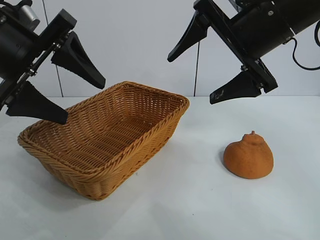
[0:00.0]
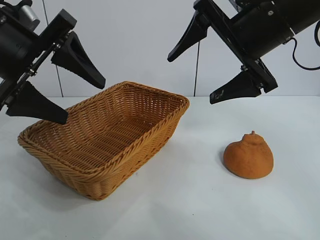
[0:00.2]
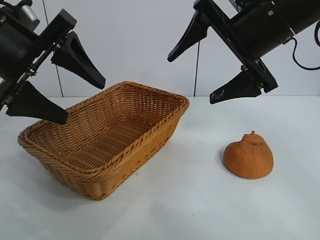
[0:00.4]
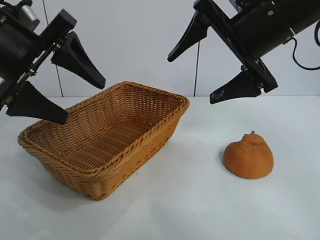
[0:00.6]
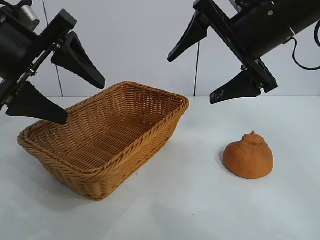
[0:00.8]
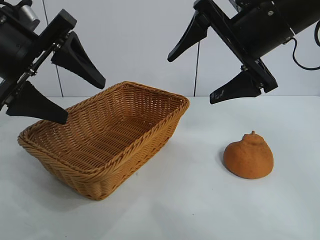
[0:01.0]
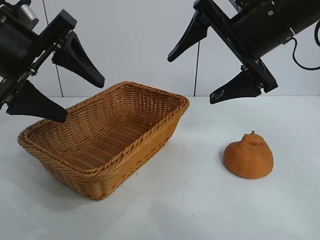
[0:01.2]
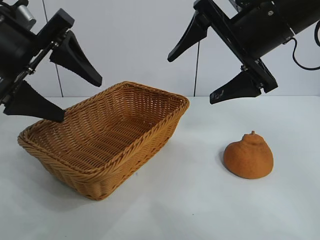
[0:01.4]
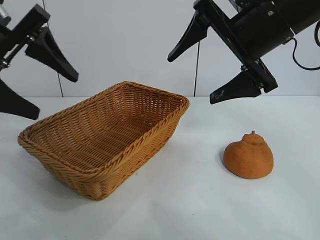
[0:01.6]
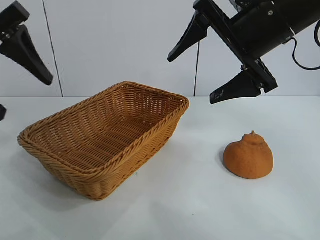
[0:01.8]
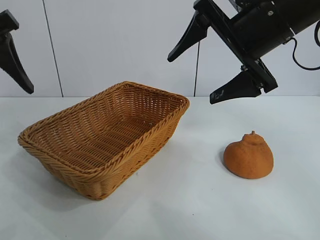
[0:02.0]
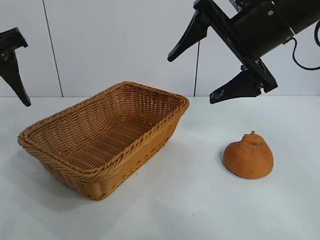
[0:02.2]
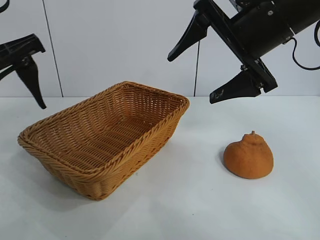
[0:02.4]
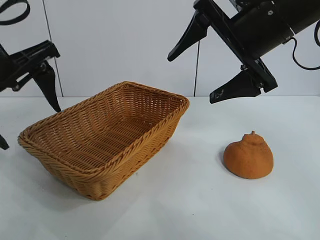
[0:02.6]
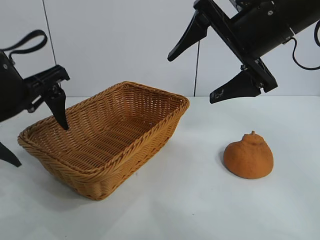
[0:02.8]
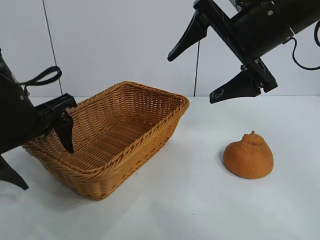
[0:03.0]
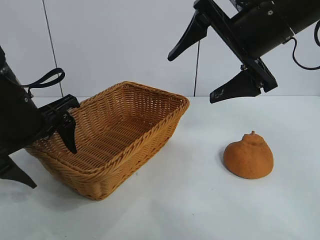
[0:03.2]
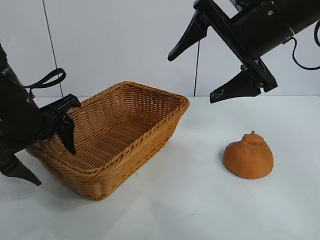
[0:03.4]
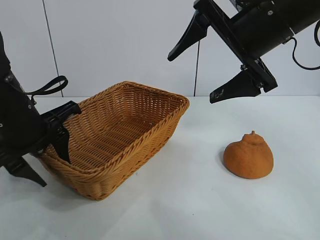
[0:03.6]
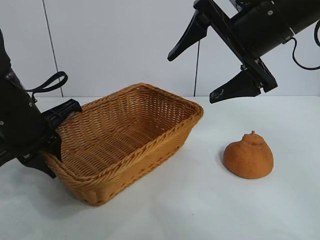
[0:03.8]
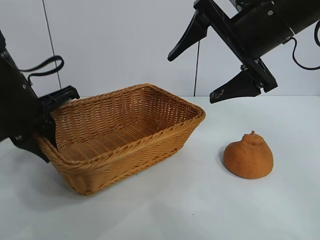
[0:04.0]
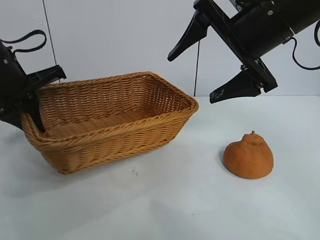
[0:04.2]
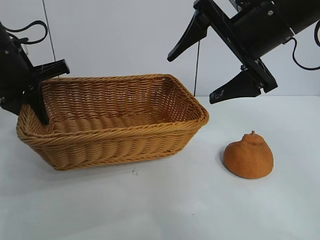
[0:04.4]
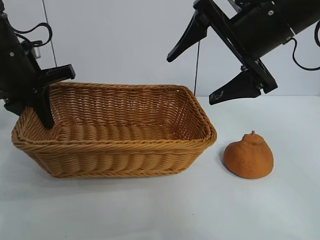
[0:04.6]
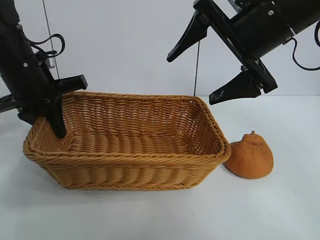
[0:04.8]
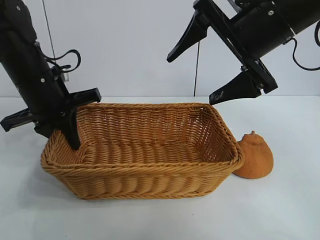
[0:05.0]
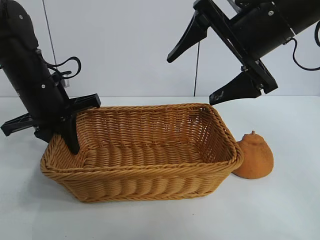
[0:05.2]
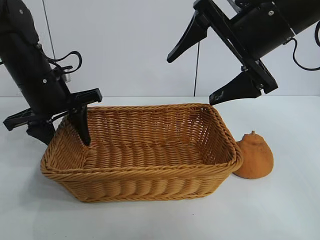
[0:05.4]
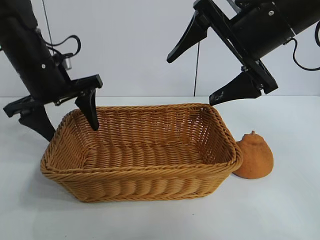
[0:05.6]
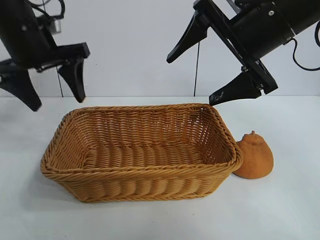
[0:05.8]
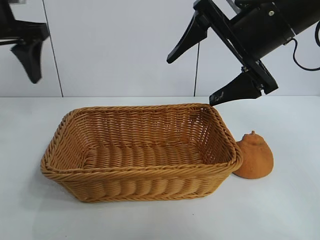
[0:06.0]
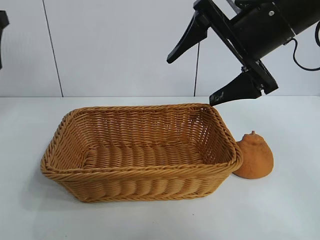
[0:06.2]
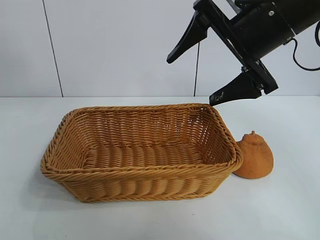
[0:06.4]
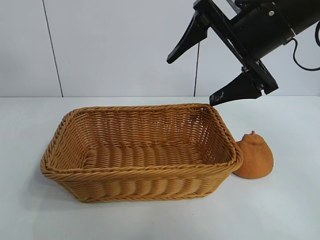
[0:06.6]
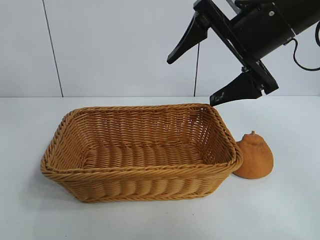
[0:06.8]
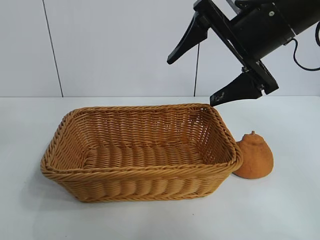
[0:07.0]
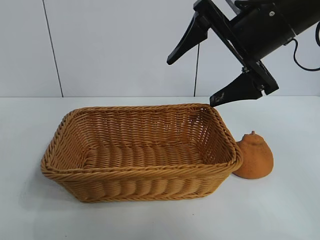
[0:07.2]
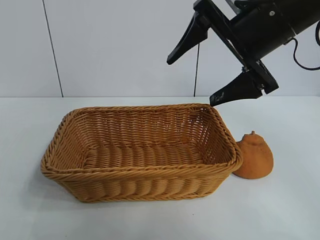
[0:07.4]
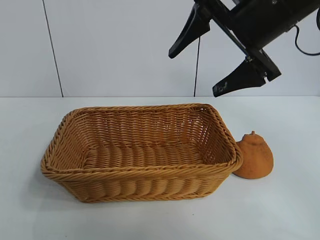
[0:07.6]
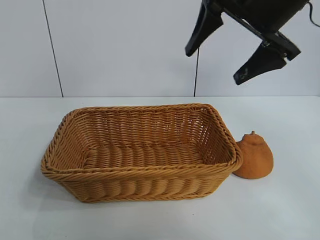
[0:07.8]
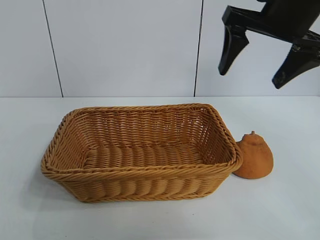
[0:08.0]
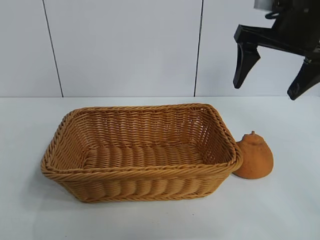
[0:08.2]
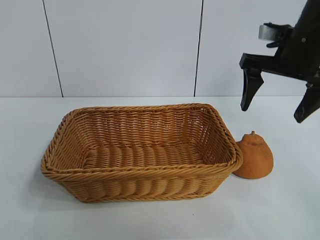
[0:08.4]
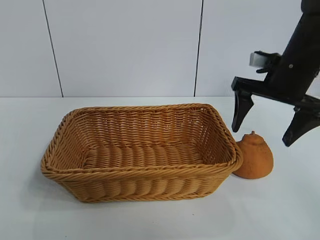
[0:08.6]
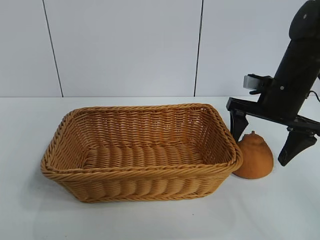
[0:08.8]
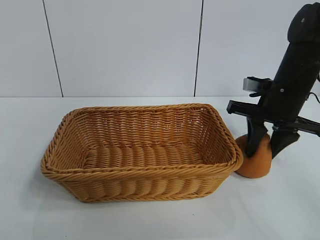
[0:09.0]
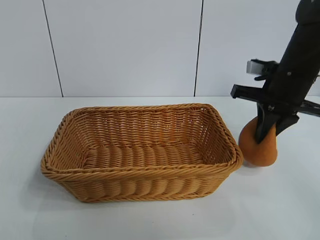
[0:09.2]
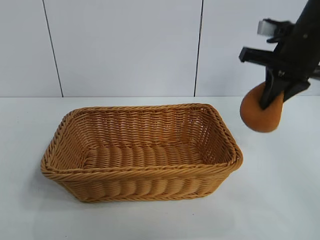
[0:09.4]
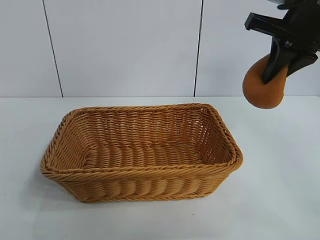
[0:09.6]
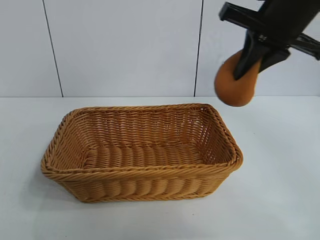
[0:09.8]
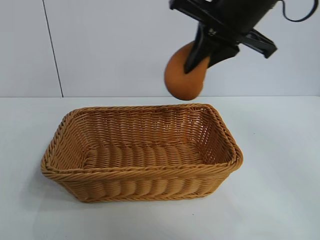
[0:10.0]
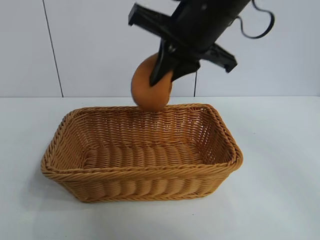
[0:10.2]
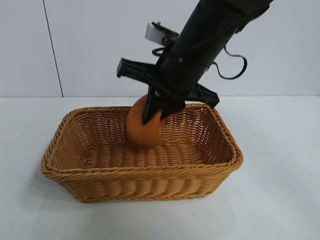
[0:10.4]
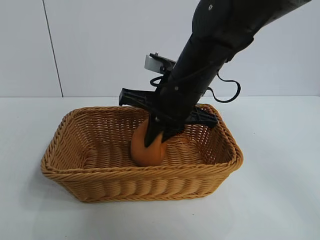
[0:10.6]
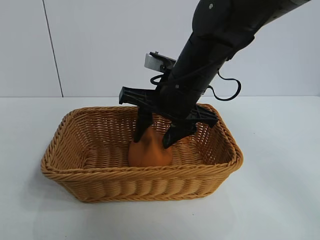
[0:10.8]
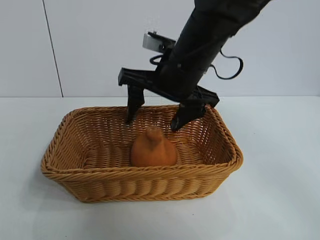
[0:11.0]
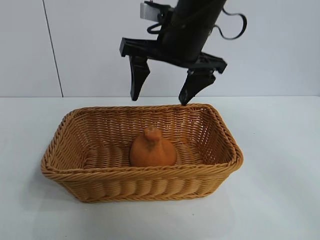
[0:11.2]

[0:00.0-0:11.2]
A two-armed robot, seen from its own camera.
Task of the whole recording: pick up the orange and put it into the basket.
Step, 0:00.8 to 0:03.8: Grasp the basket with left gripper.
Step, 0:04.0 to 0:05.4: Place the basket in the center of view with left gripper.
Step, 0:05.6 to 0:09.0: Grasp the orange with right gripper.
Step, 0:09.2 to 0:11.0: Place the orange in the basket with right gripper.
